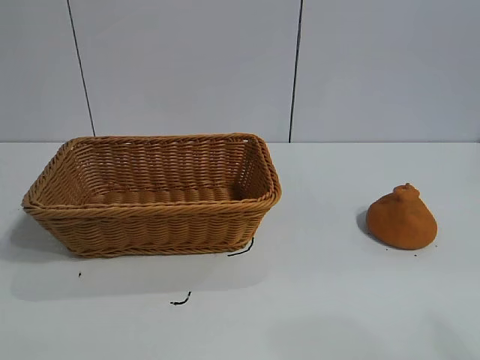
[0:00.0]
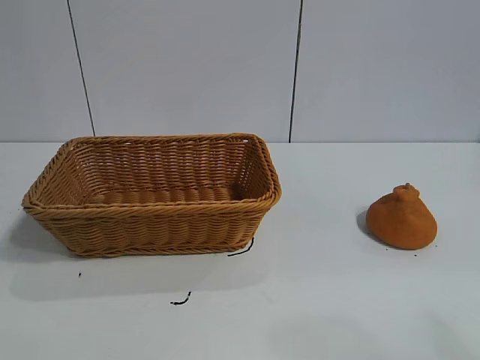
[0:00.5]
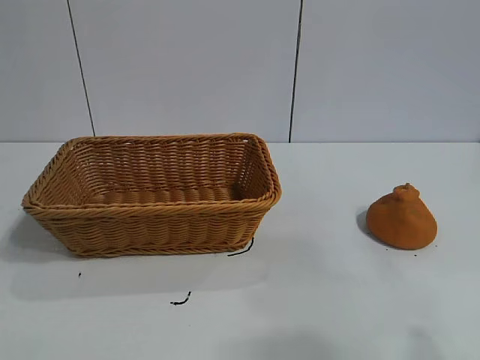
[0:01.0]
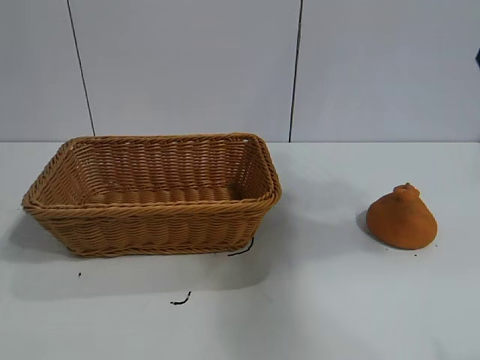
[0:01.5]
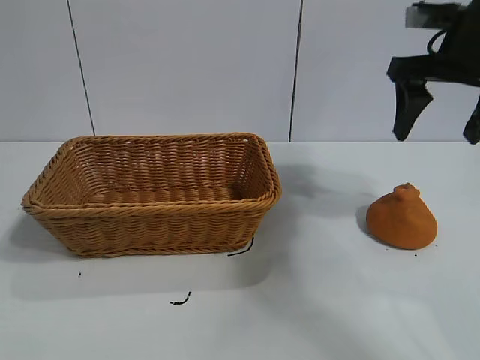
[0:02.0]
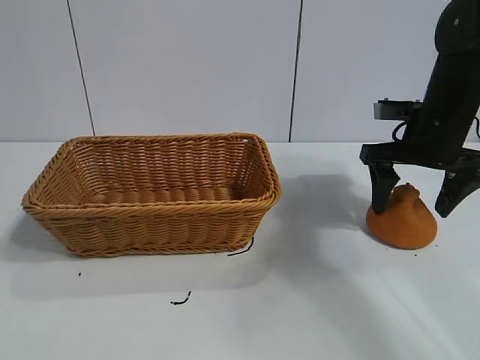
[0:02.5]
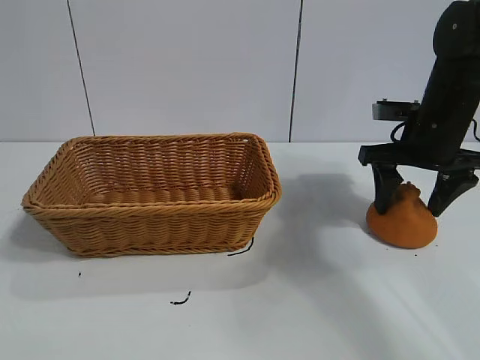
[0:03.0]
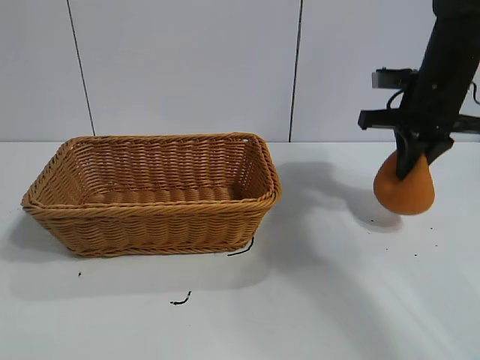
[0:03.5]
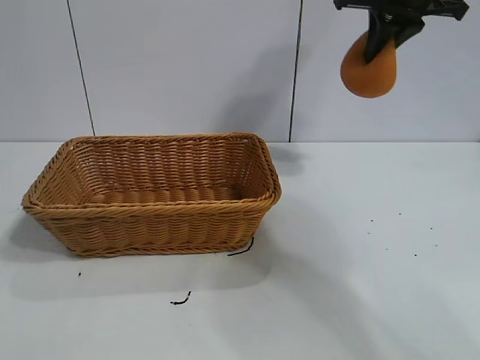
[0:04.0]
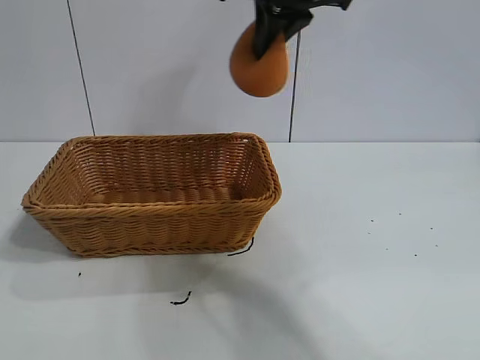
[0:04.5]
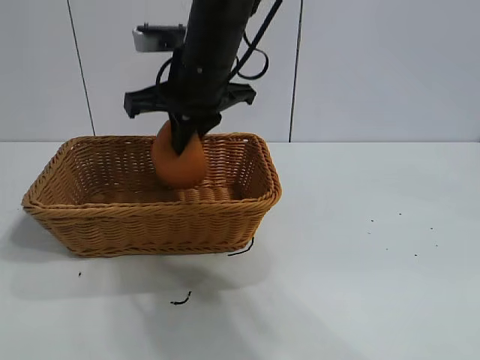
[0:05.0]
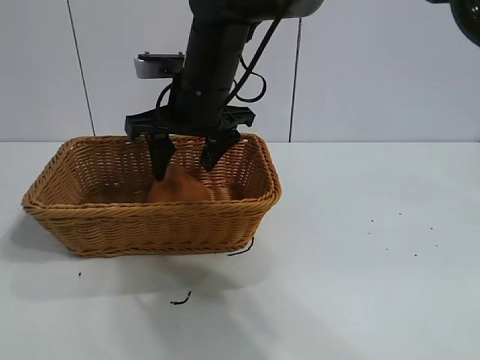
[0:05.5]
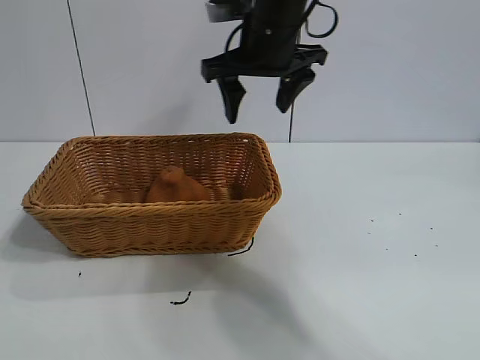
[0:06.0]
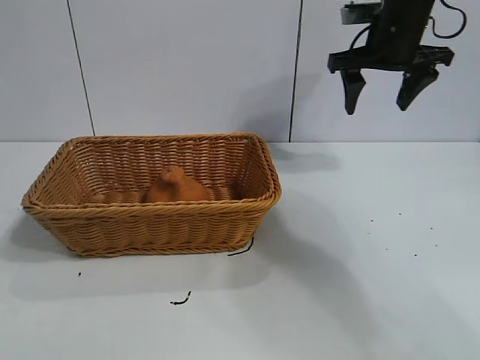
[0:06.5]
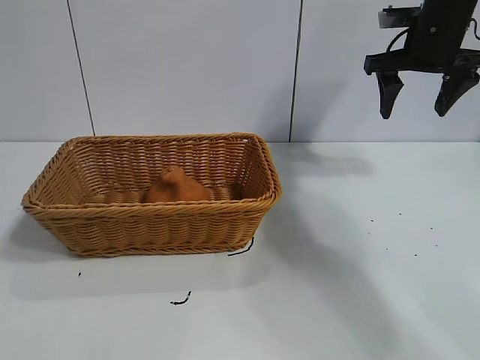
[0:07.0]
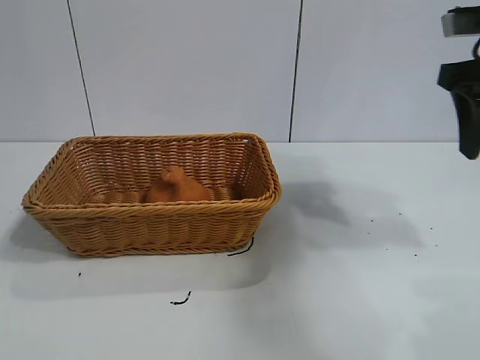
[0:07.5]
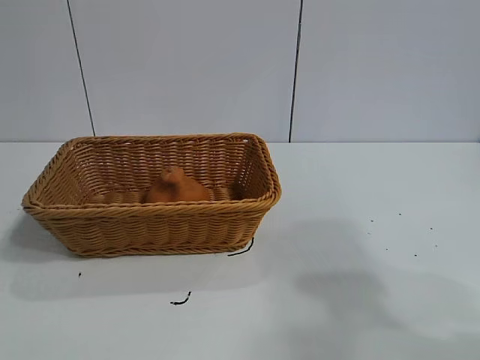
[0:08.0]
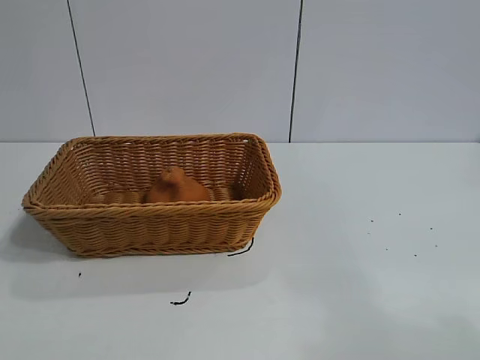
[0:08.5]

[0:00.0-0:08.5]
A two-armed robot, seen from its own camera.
Task of the whole recording: pick up the orange and put it into the basket.
Step, 0:01.0 to 0:03.0: Grasp the orange with right gripper.
Step, 0:03.5 to 0:05.5: Place the orange in the basket with right gripper.

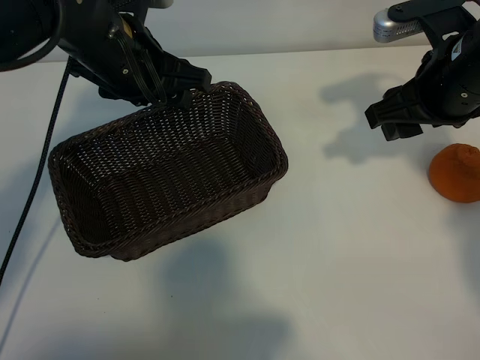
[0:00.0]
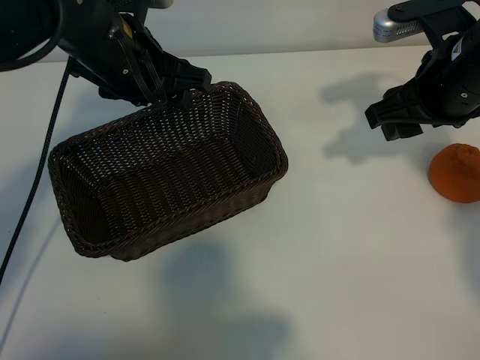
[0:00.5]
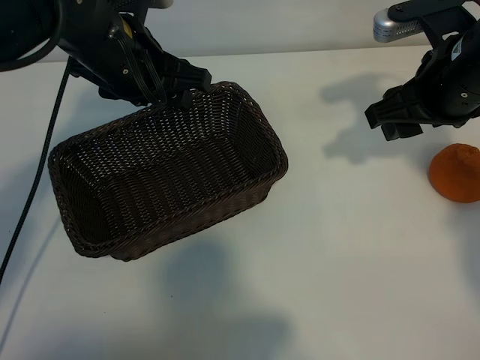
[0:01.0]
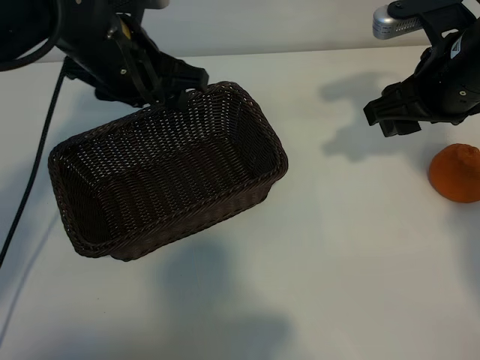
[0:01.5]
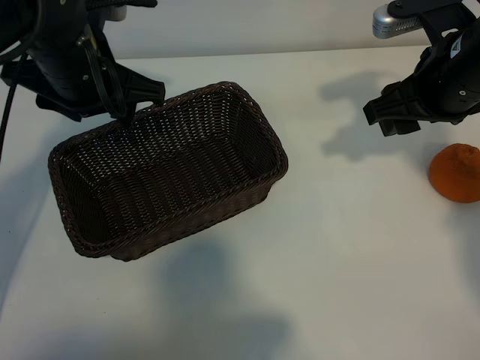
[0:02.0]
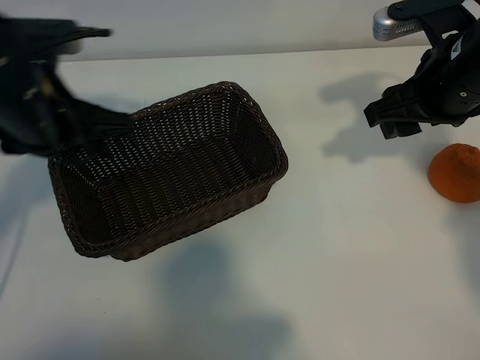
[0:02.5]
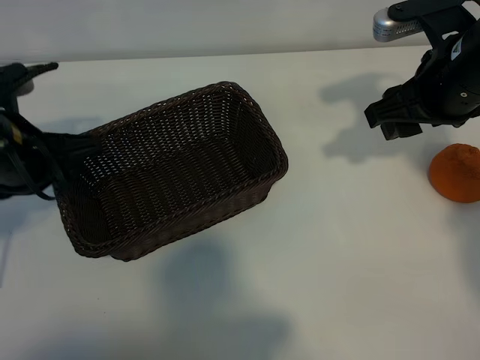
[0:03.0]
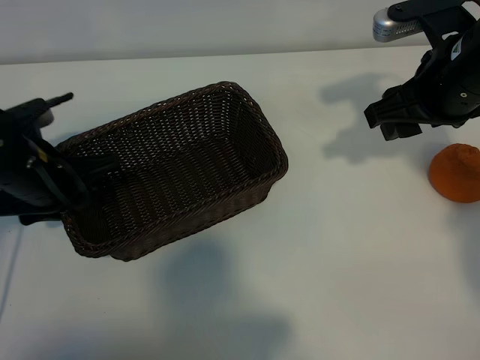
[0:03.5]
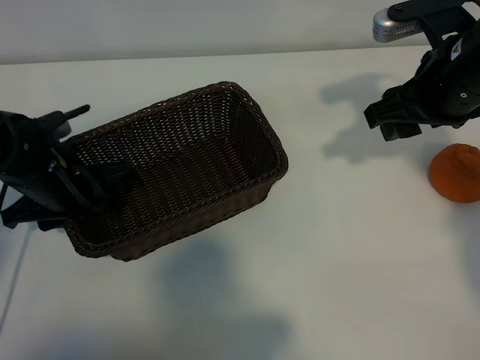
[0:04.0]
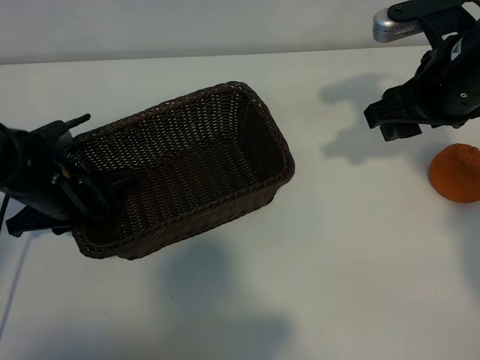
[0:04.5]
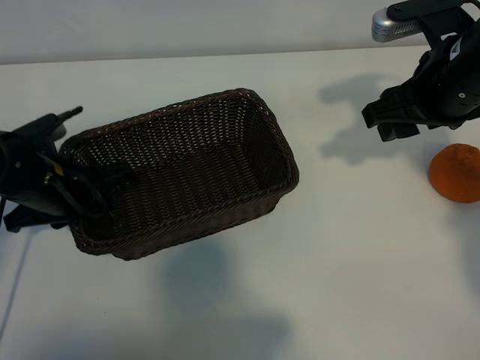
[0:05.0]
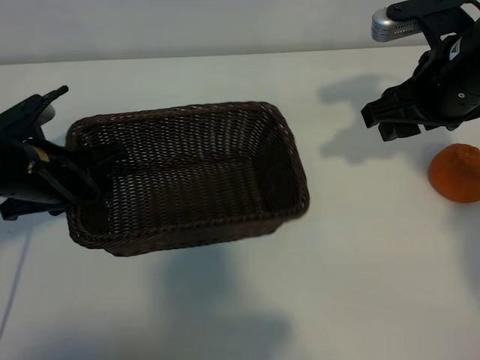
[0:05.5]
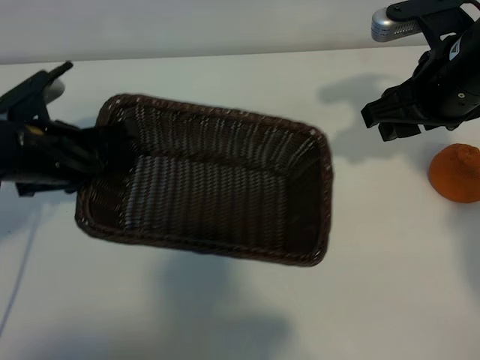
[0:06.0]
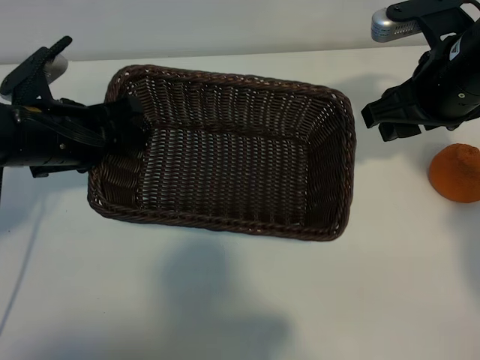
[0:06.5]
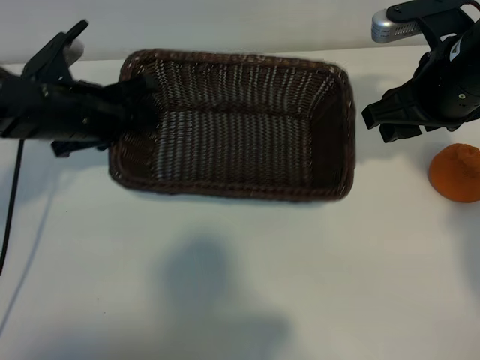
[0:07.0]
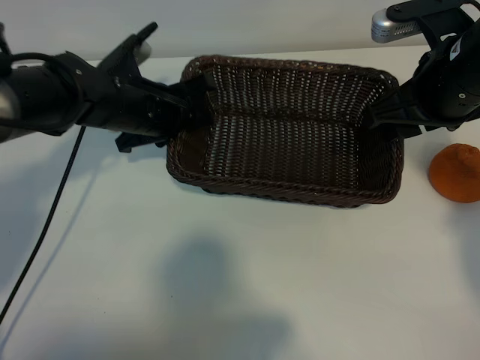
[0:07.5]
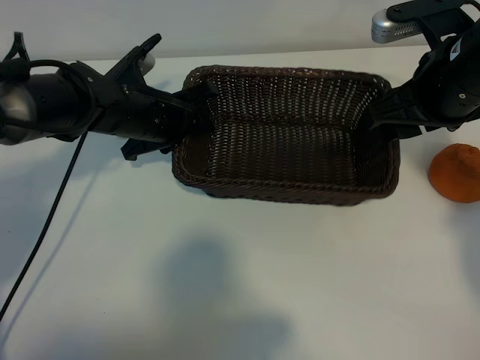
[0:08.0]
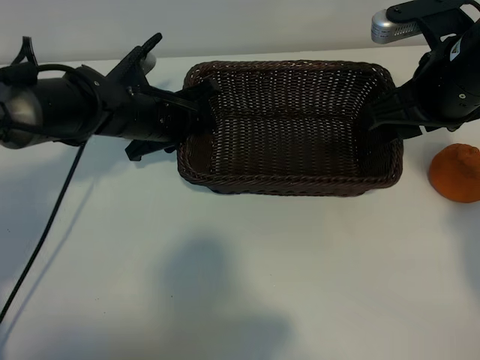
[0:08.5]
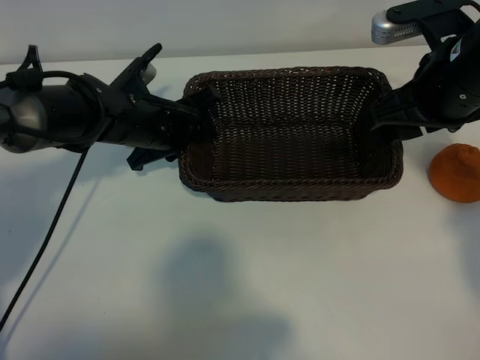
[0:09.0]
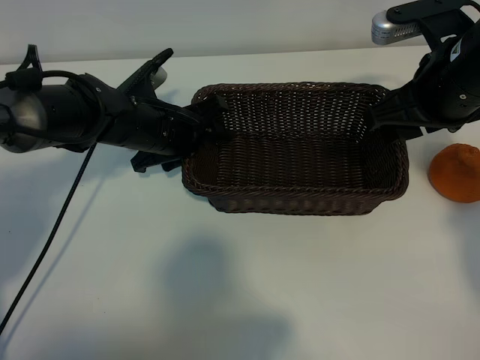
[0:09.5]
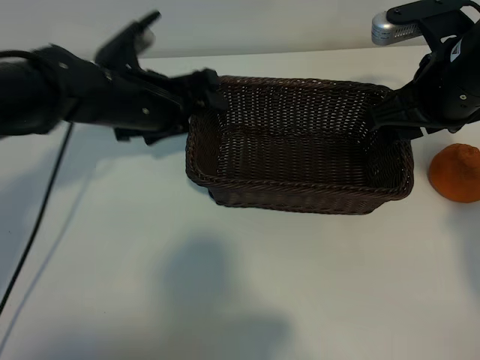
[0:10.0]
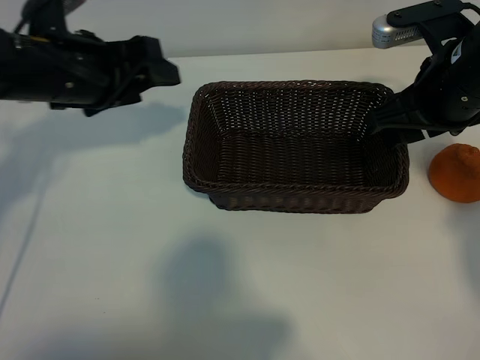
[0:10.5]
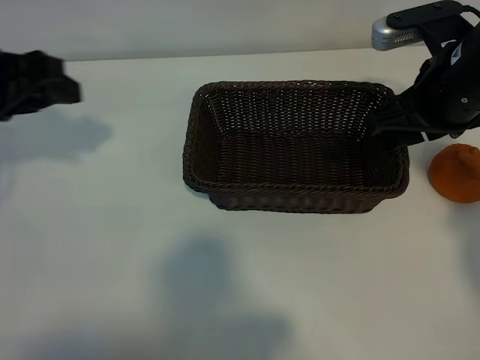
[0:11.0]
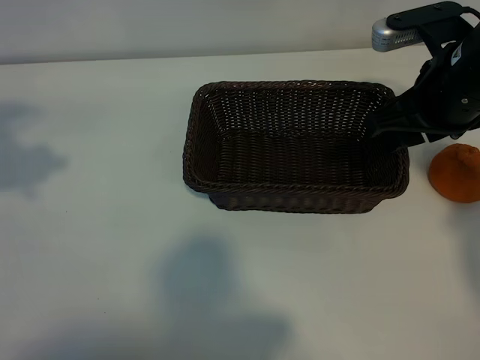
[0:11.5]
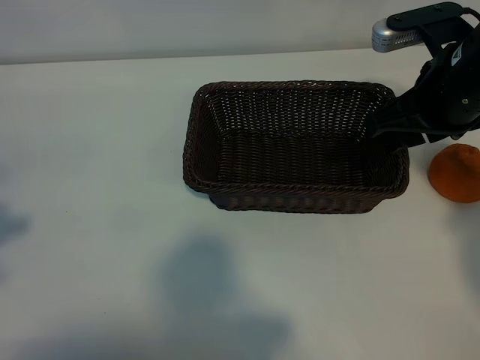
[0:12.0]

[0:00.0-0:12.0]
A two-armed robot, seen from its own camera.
Task of the whole recording: pick up the orange and put it into the basket.
Step, 0:01.5 to 0:04.5: Grasp the basket with left gripper.
Step, 0:05.0 to 0:10.0: Place the basket in the center of view with left gripper.

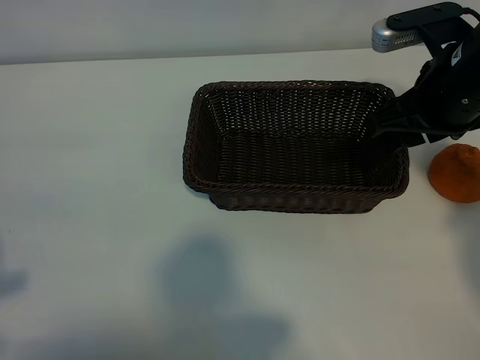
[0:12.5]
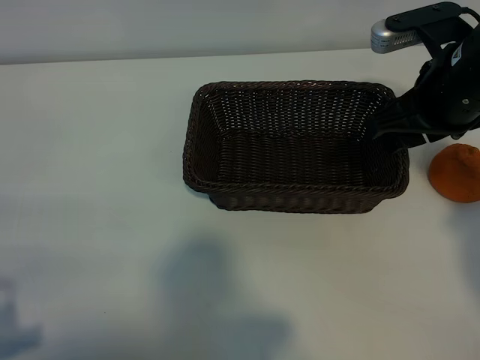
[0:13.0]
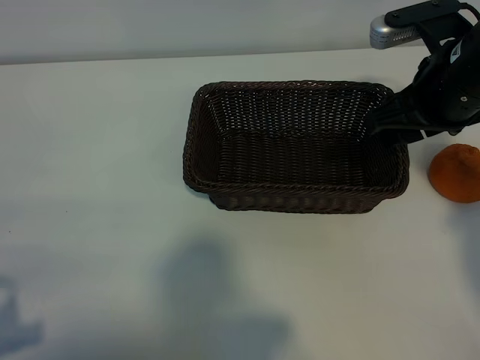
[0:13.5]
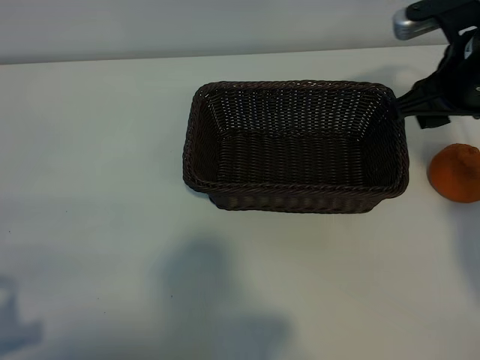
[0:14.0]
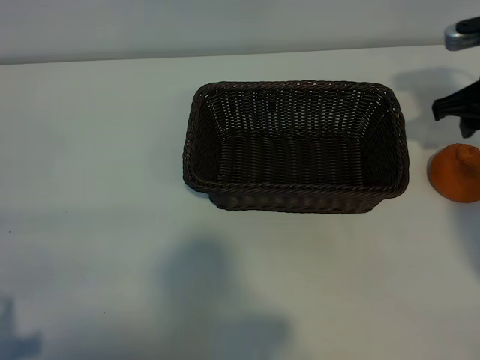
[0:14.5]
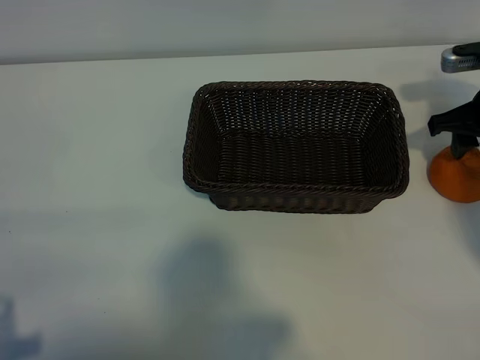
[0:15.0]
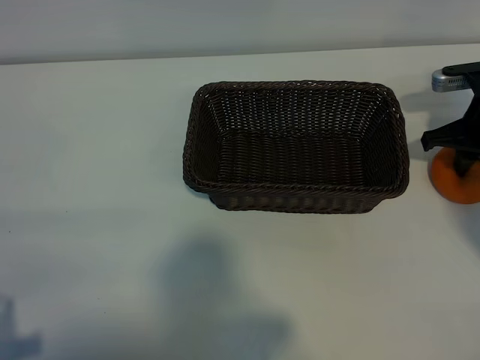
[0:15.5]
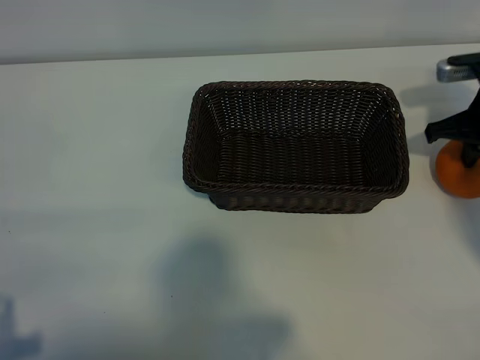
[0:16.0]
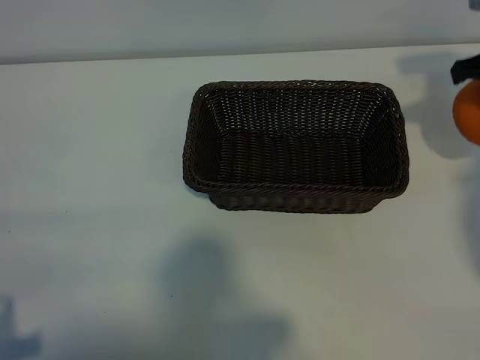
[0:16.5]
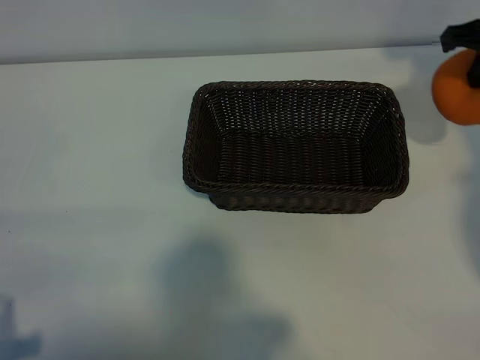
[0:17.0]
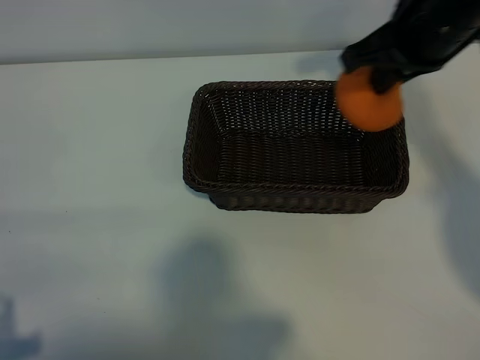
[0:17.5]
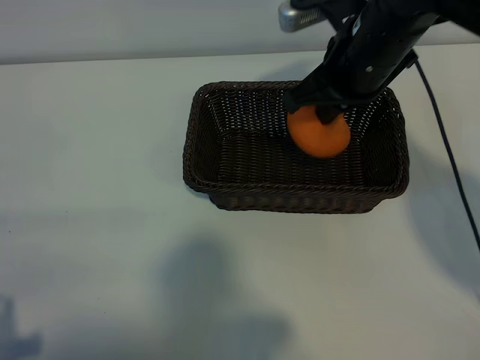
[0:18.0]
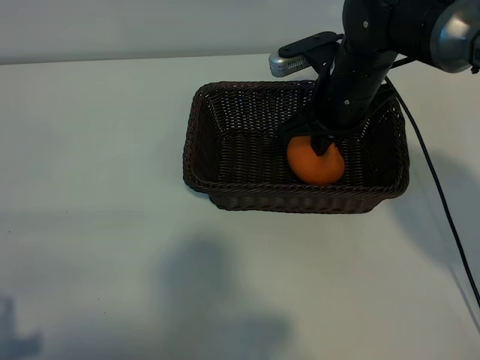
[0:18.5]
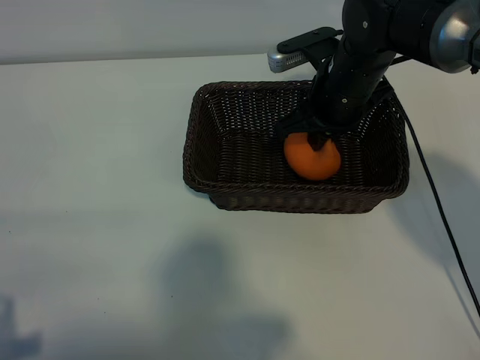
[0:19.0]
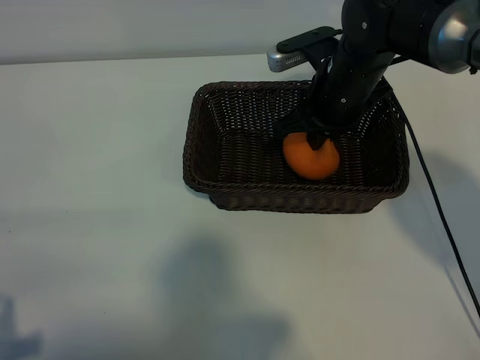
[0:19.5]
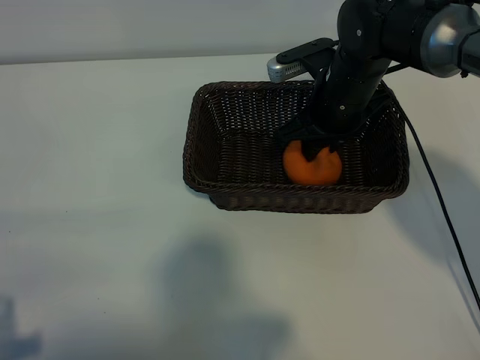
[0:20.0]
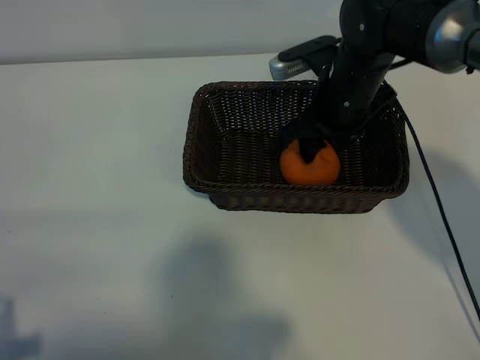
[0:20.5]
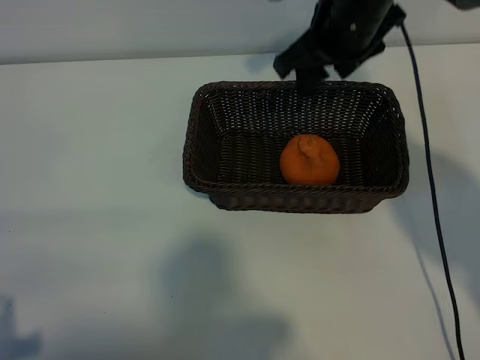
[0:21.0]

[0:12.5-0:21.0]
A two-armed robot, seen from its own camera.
Task of the whole recording: pick up the orange and put it into the basket.
Step, 0:12.5 to 0:15.5: Grasp the orange with right gripper.
Step, 0:16.0 to 0:20.0: Place the orange in the basket with right gripper.
